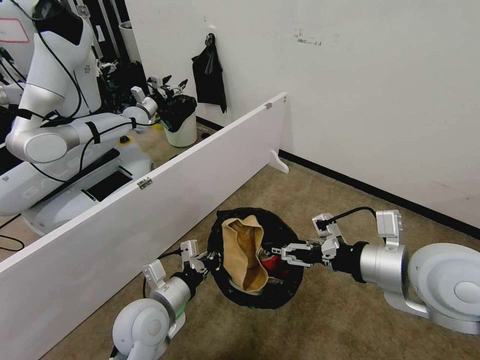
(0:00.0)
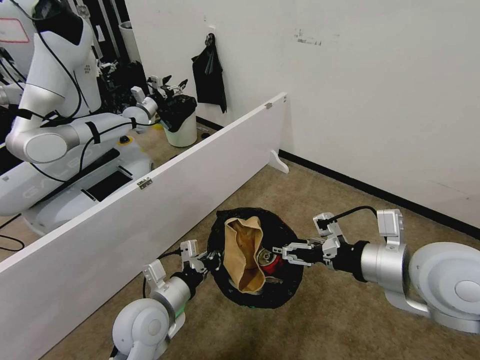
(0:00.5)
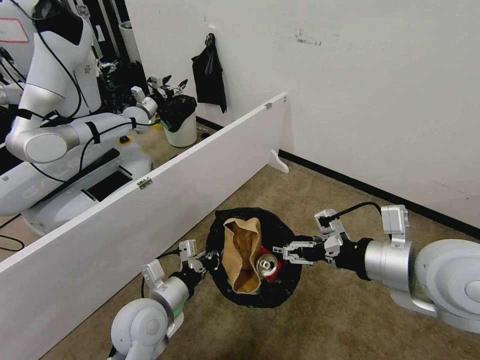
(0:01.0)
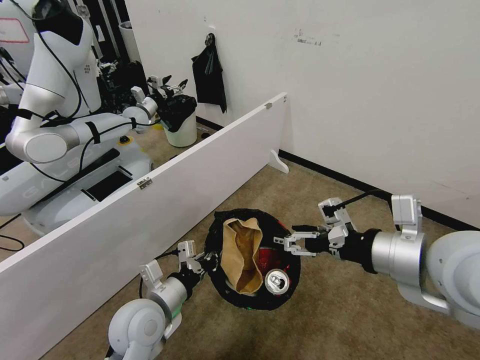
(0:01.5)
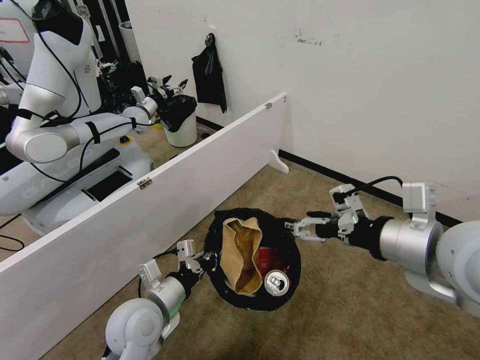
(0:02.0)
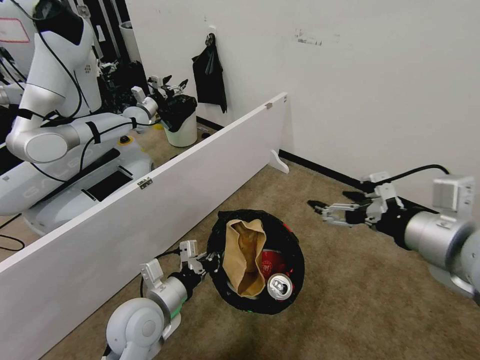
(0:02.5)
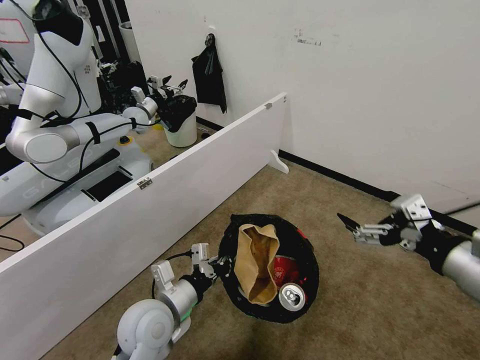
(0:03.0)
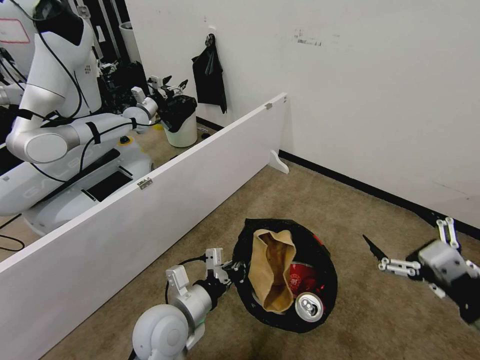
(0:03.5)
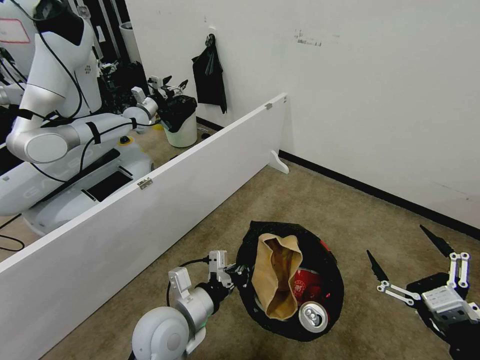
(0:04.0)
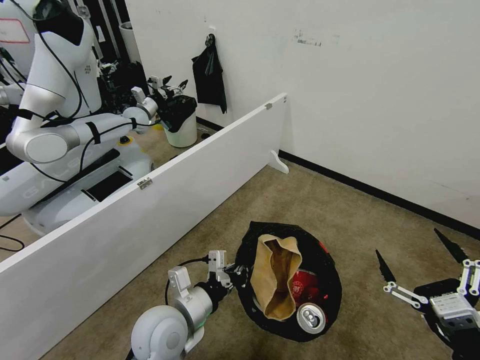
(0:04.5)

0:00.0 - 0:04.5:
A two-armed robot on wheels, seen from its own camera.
Task of the whole recording: Pick up the trash bin, then pick up the garbage from the floor and place it into the trash bin.
0:00.0 - 0:02.0: The right gripper moves upward, approximately 5 cm.
0:02.0 - 0:04.5: The right gripper heads downward, backward and to the right, covering roughly 25 cm. Meanwhile the left gripper moves about 5 cm.
